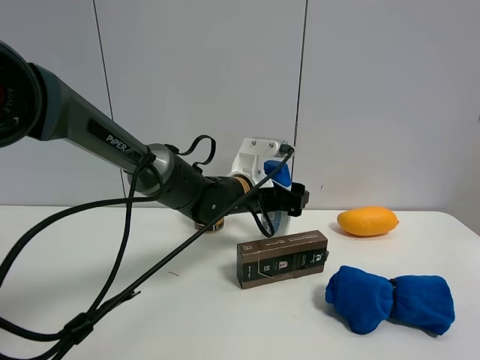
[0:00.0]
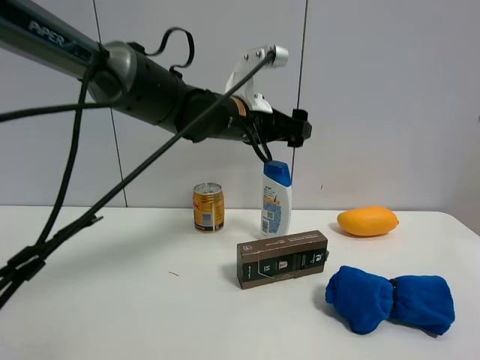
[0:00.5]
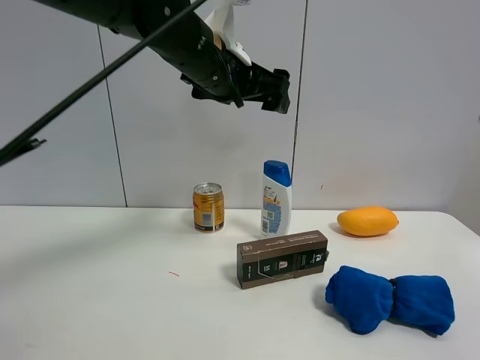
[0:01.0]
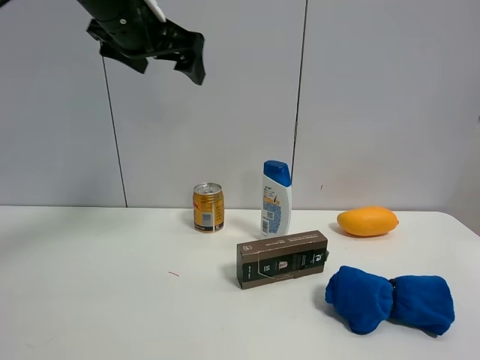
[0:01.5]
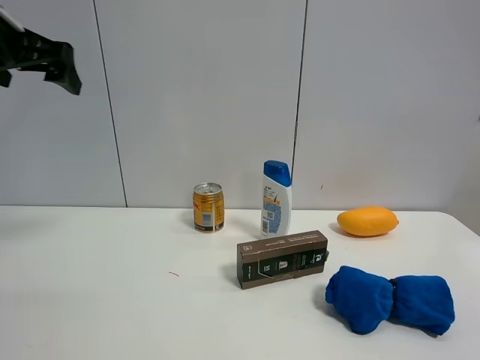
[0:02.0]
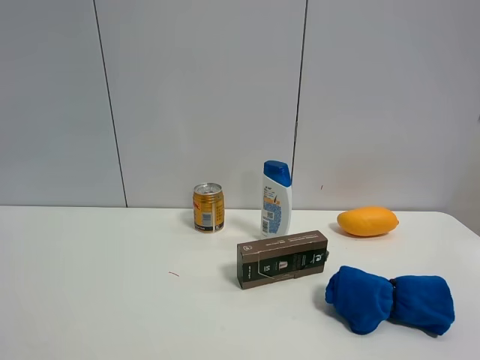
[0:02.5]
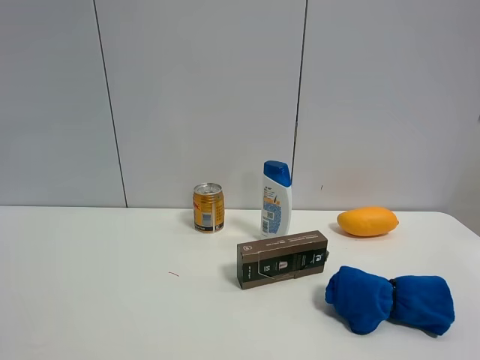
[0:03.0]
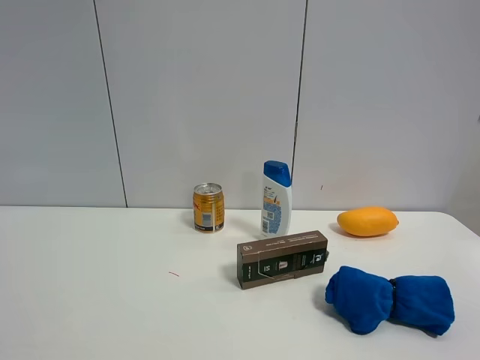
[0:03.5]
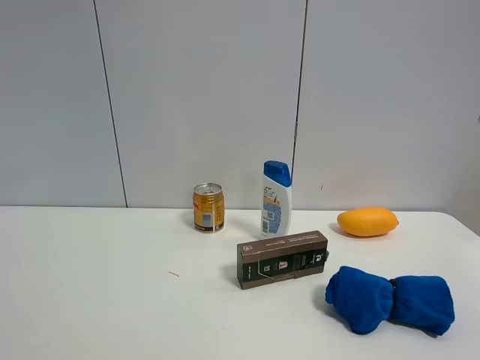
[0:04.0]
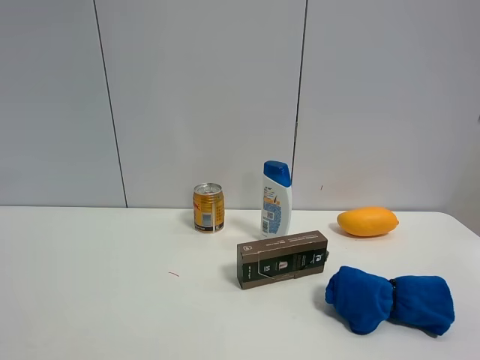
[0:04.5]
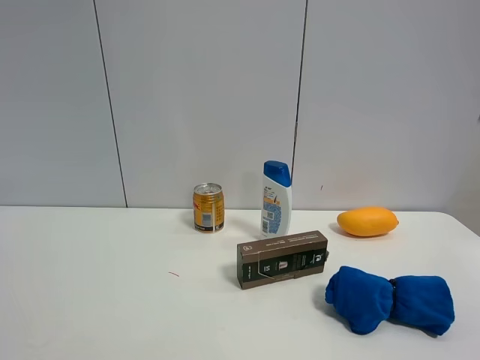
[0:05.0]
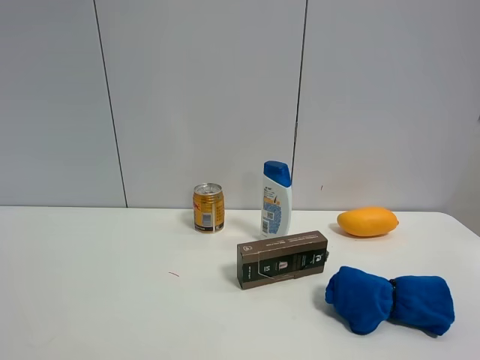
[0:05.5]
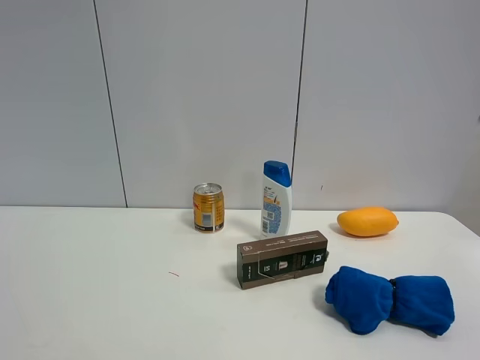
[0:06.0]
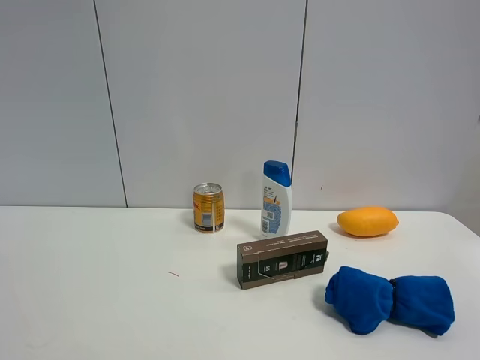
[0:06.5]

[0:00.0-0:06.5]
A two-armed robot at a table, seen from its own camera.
Task of the whole recording: the gripper move the object.
0:00.0 to 0:02.0: The left gripper moves to the left and upward, roughly 40 cm.
0:02.0 to 0:04.5: The left gripper goes about 30 cm backward.

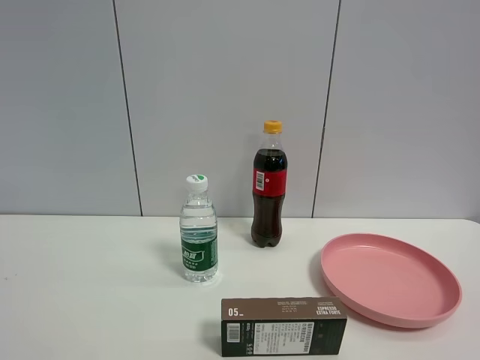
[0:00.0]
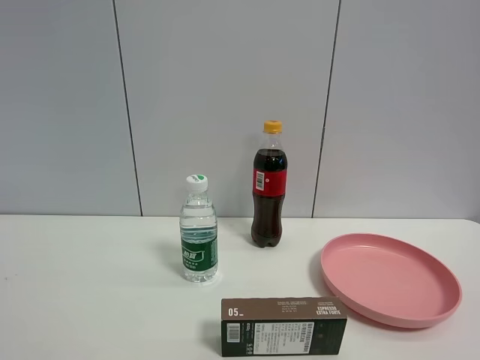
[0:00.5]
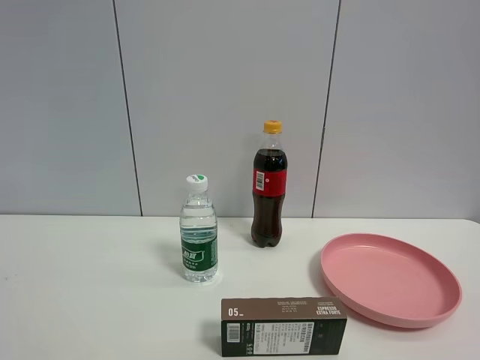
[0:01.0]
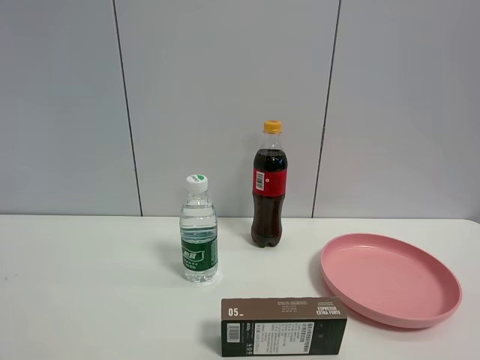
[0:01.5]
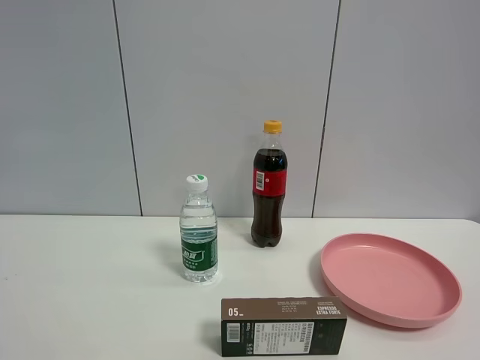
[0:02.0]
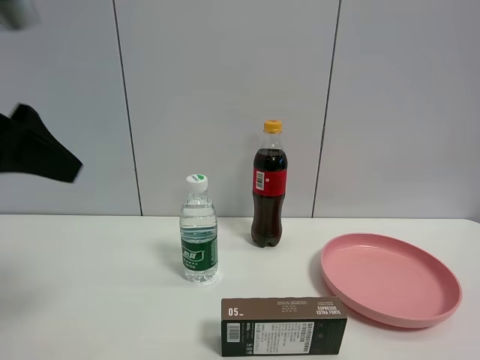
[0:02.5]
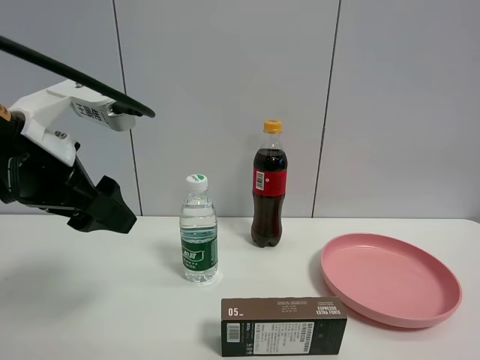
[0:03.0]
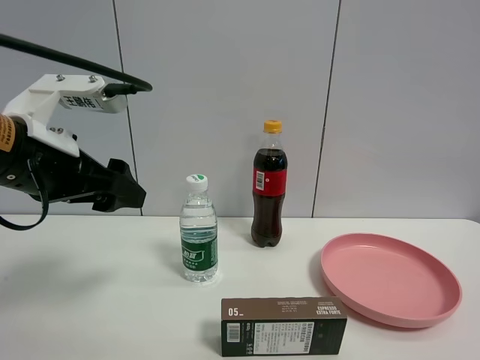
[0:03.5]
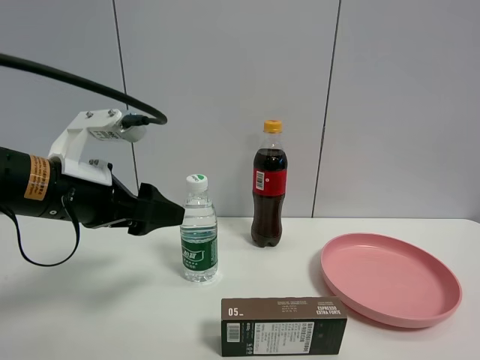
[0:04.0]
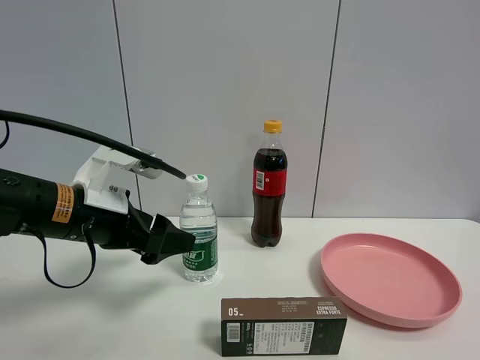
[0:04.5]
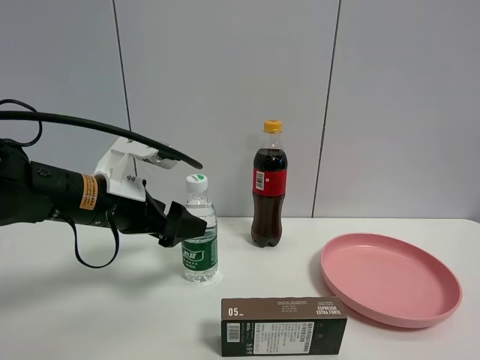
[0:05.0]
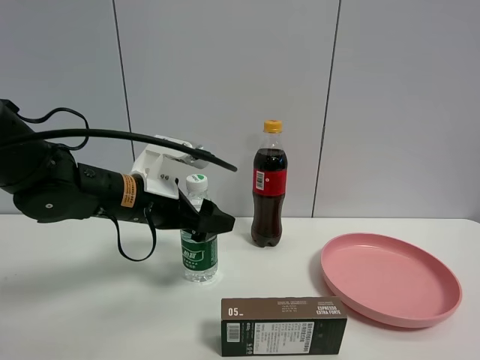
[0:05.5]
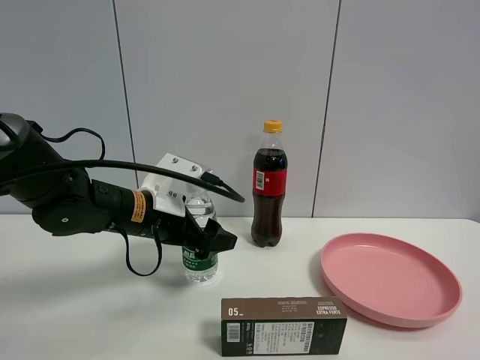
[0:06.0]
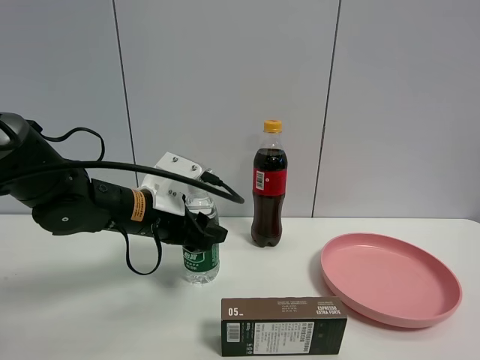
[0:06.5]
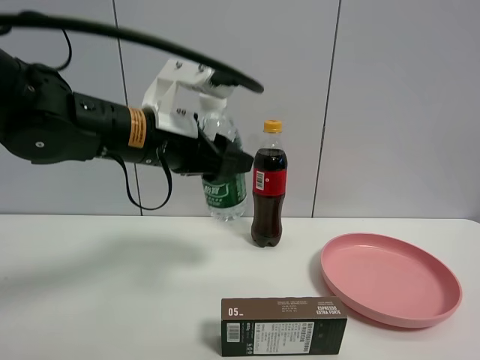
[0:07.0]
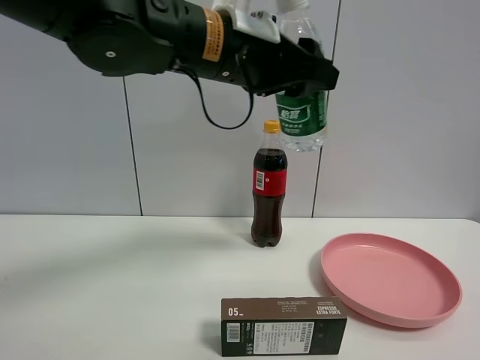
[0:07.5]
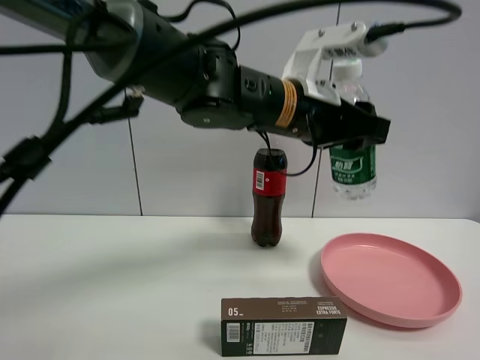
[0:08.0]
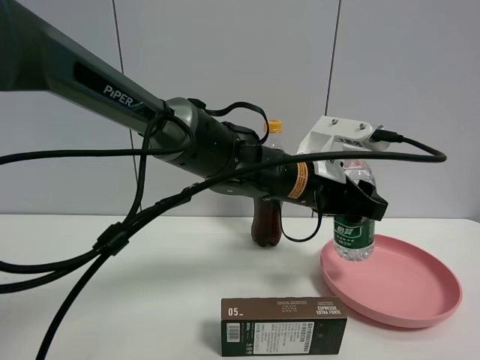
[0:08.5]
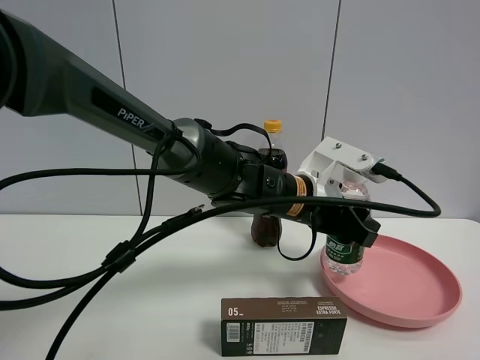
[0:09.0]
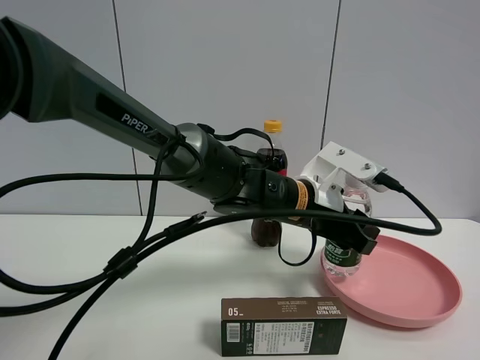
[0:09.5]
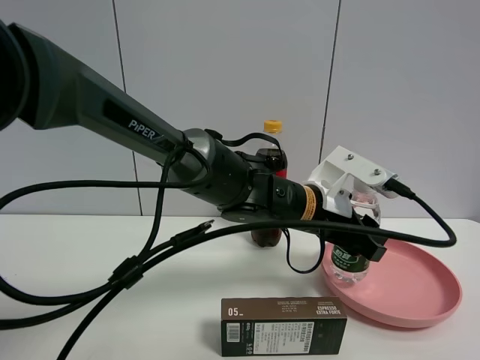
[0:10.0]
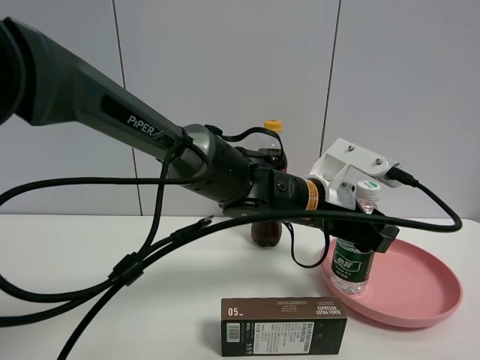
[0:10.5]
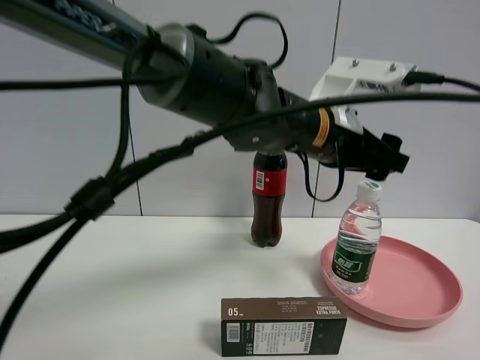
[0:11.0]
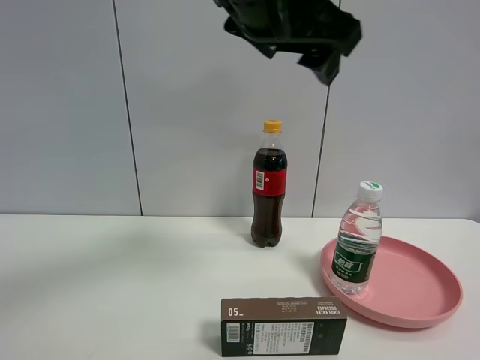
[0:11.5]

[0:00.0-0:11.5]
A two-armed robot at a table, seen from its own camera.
Task of the whole recording: the gripper move the object.
Step, 0:00.0 to 0:06.5: Grasp the YiBao mineral water with the left gripper.
Step, 0:07.0 to 0:11.0: Place the YiBao mineral water into the pink plate with the left gripper.
0:02.0 to 0:04.0: The left gripper heads downward, forward and to the right, covering roughly 30 cm.
0:04.0 to 0:06.0: The left gripper is displaced forward, downward and to the right by approximately 10 cm.
0:06.0 to 0:07.5: The left gripper shifts about 25 cm upward and to the right, and closes up.
0:07.5 to 0:09.5: The left gripper travels downward and to the right by approximately 20 cm.
0:09.5 to 0:11.5: The left gripper travels upward by some 25 cm, and opens its fingers.

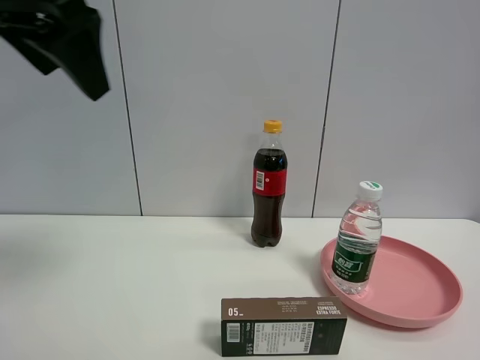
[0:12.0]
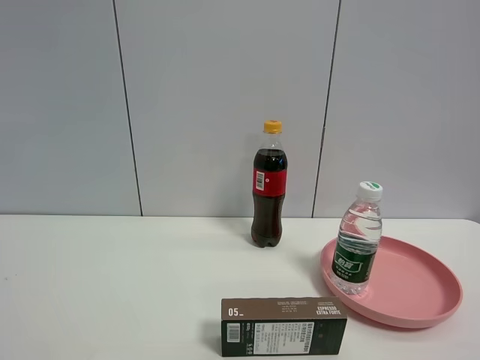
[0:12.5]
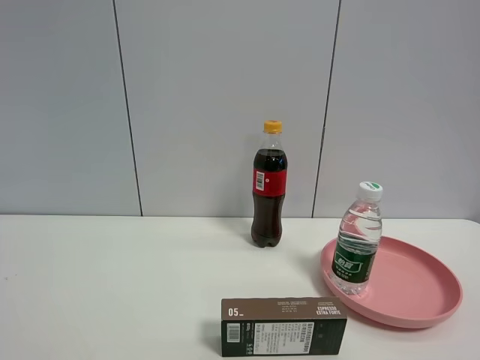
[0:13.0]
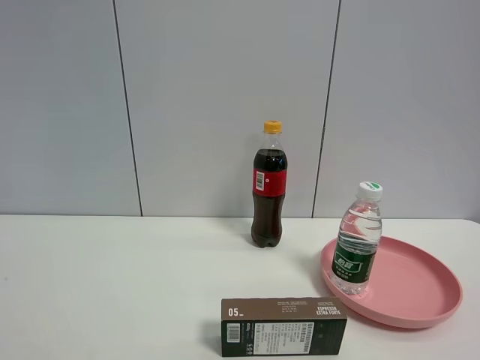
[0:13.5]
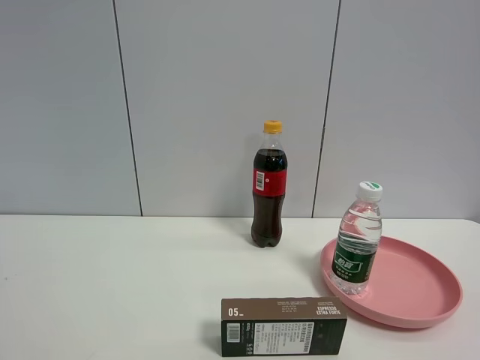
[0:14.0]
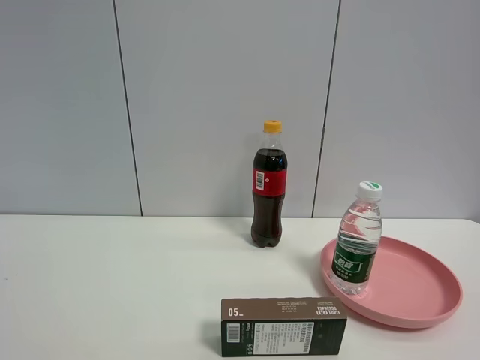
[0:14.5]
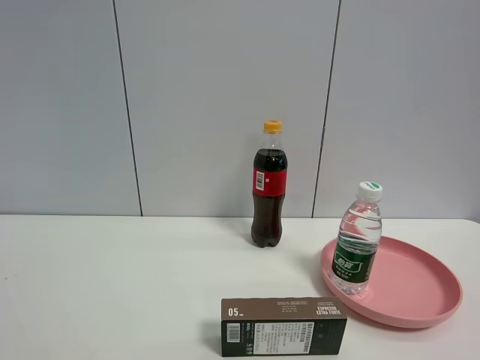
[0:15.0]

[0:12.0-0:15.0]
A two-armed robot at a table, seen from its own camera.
Task of the whole recording: the gripper move the object.
0:12.0 to 0:13.5: The left gripper is displaced backward and to the left by roughly 30 cm.

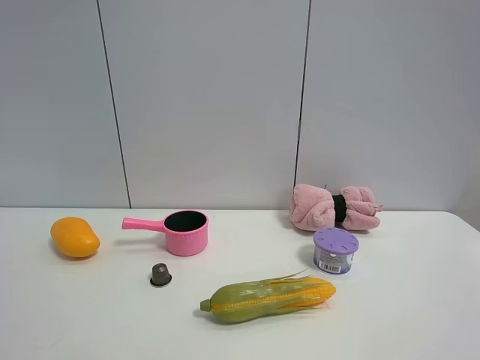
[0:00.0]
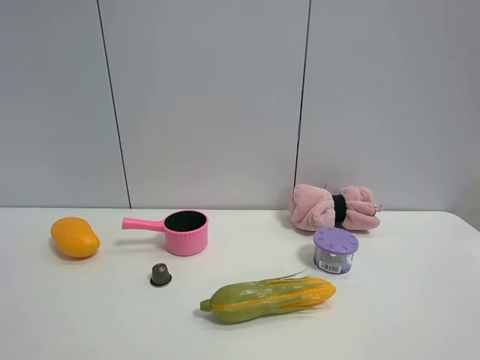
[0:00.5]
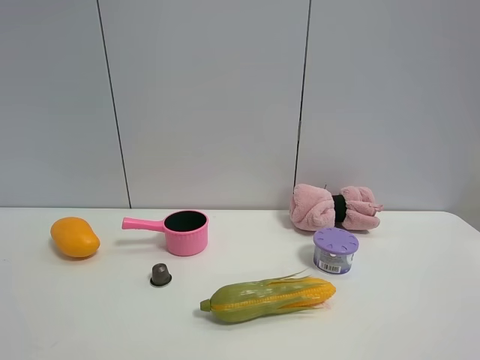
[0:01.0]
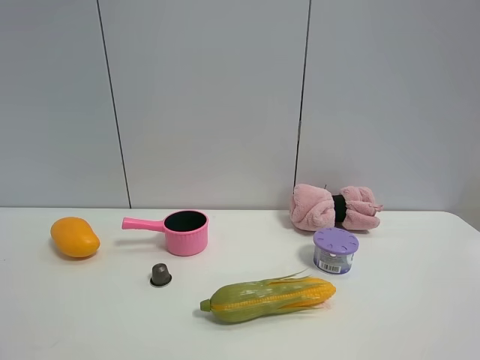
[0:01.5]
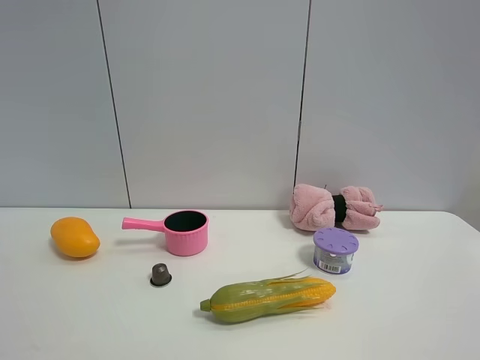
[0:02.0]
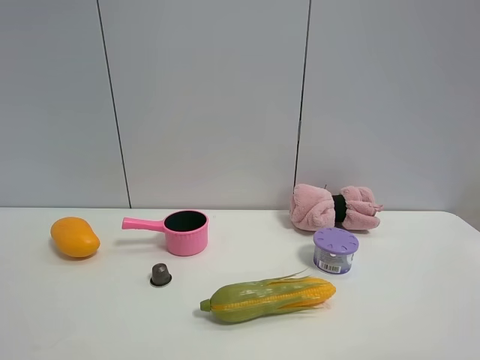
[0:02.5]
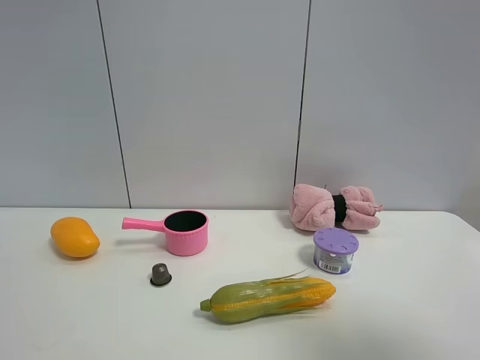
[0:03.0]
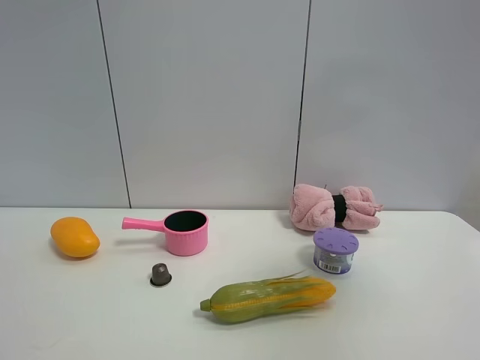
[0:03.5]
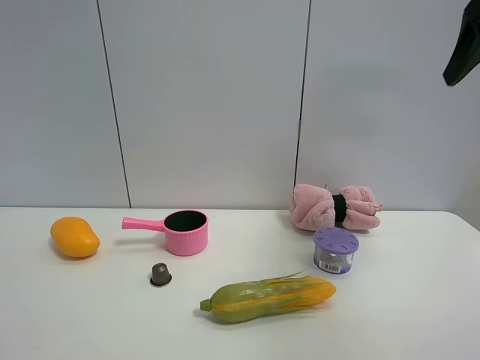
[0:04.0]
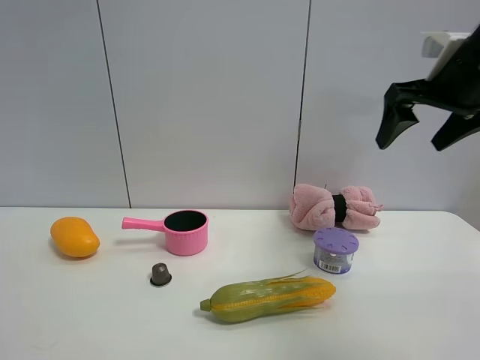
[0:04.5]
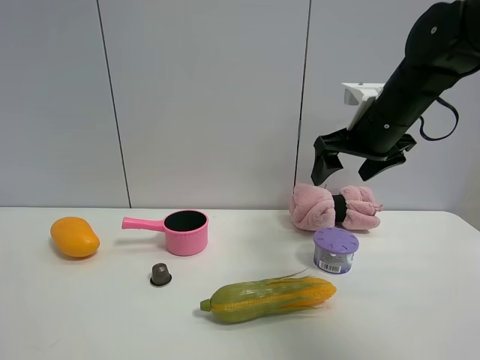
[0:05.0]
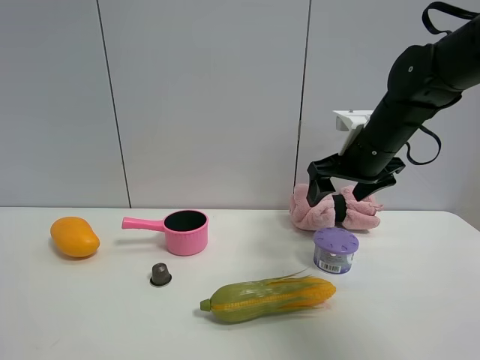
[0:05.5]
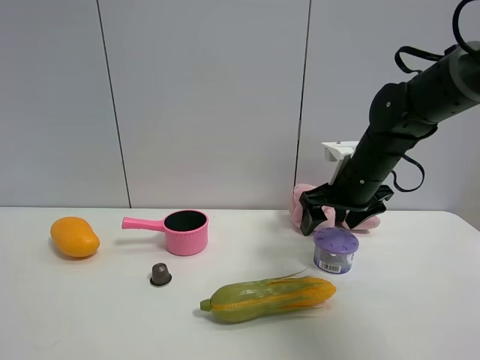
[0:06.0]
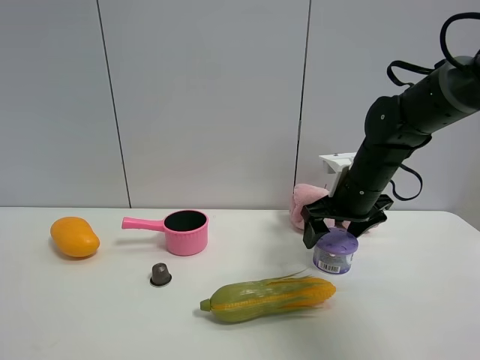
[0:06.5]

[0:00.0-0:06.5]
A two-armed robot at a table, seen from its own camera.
Task of the whole recording: the gripper move the object.
0:00.0 to 0:02.0: Both grippers stay put.
0:02.0 to 0:04.5: The right gripper shifts some 35 cm forward.
0:04.5 to 0:06.5: The right gripper moves downward and to the left, approximately 20 cm.
